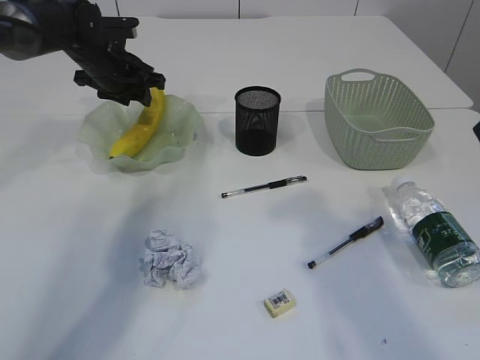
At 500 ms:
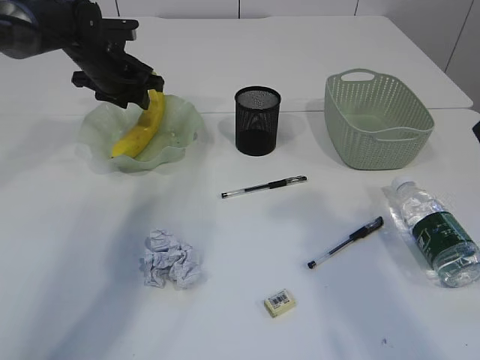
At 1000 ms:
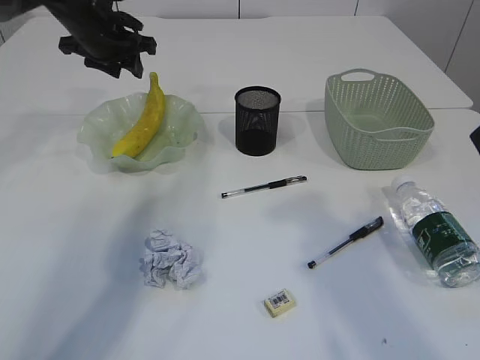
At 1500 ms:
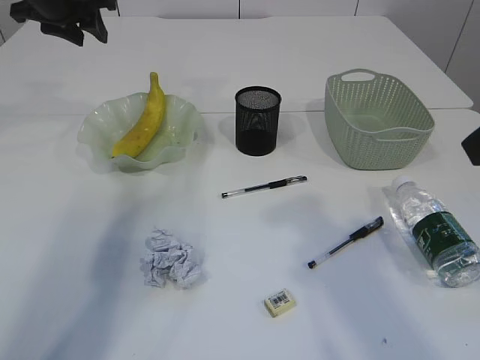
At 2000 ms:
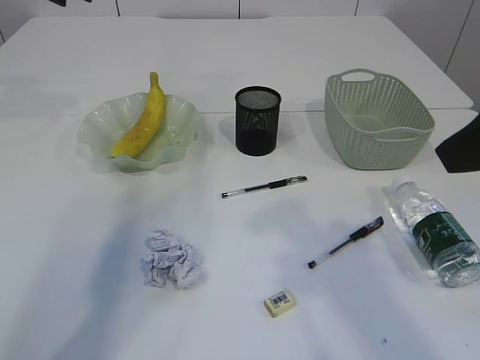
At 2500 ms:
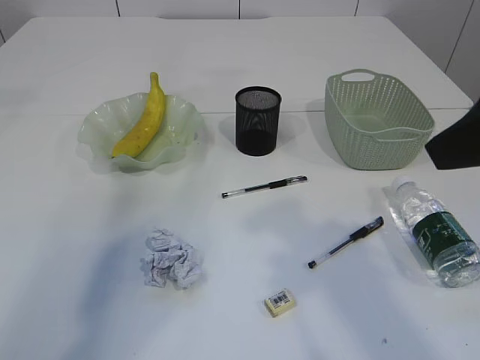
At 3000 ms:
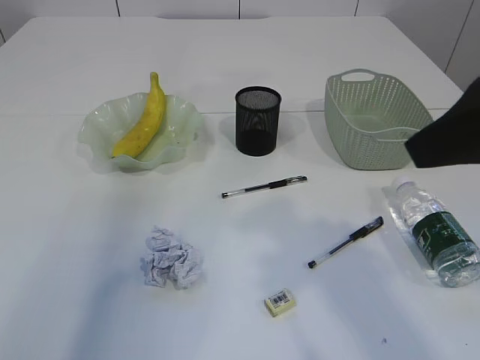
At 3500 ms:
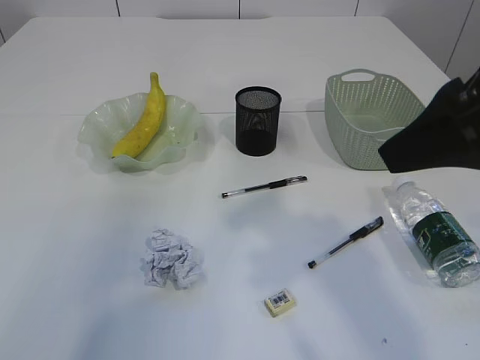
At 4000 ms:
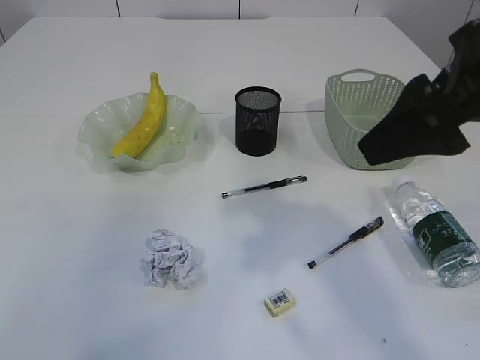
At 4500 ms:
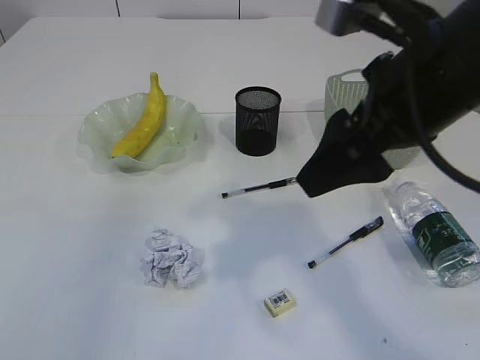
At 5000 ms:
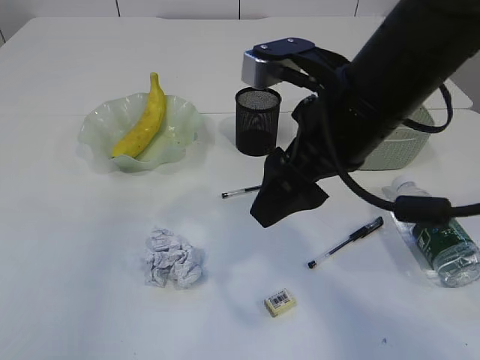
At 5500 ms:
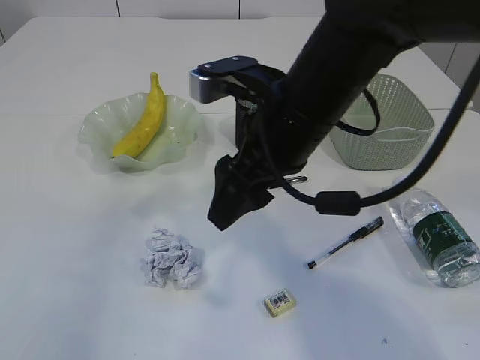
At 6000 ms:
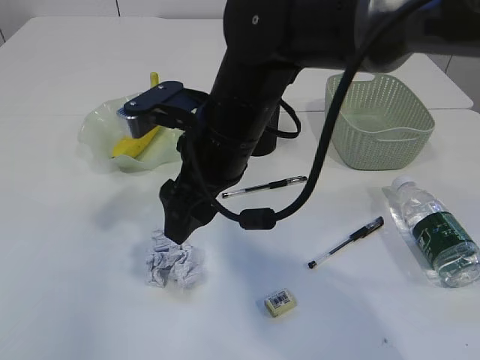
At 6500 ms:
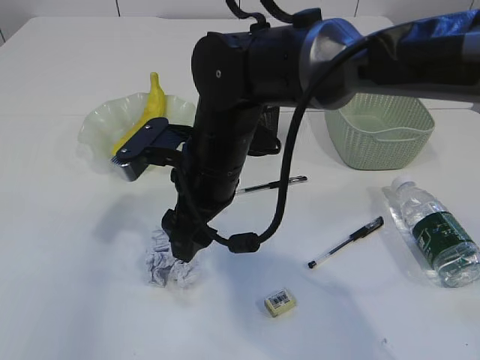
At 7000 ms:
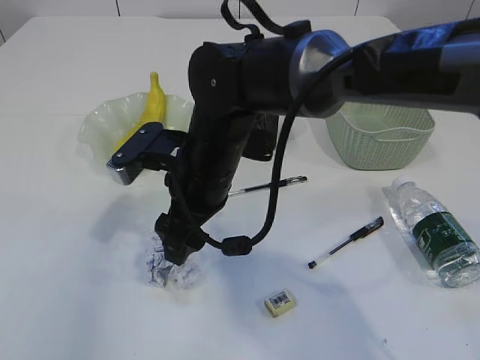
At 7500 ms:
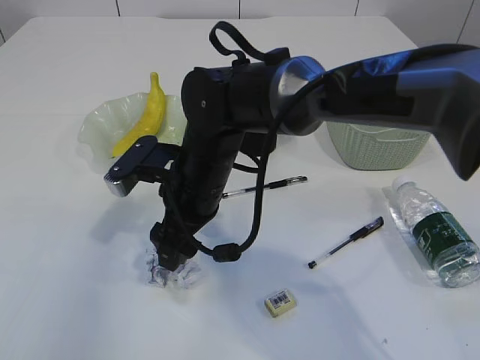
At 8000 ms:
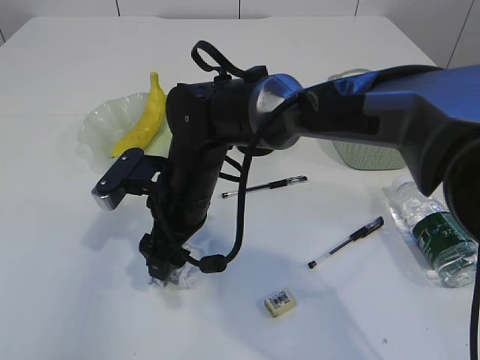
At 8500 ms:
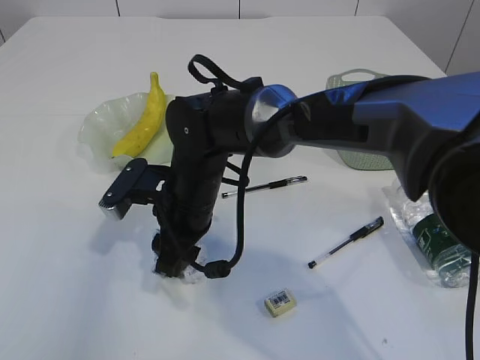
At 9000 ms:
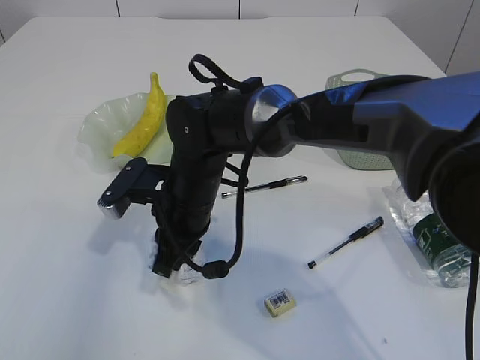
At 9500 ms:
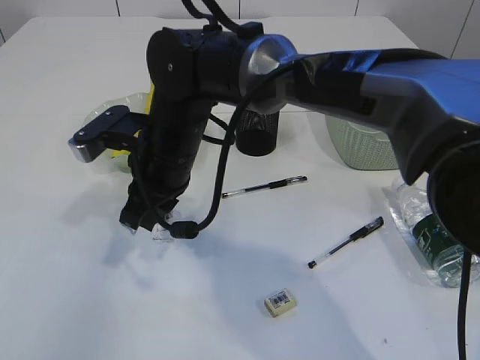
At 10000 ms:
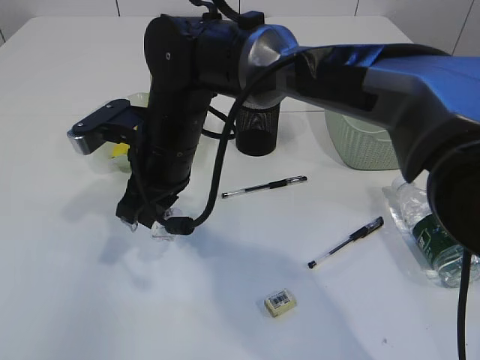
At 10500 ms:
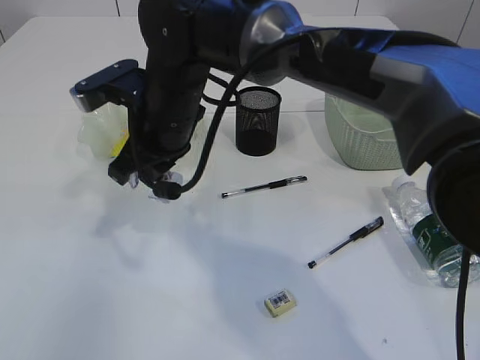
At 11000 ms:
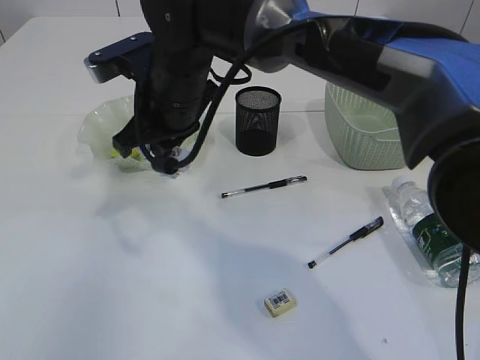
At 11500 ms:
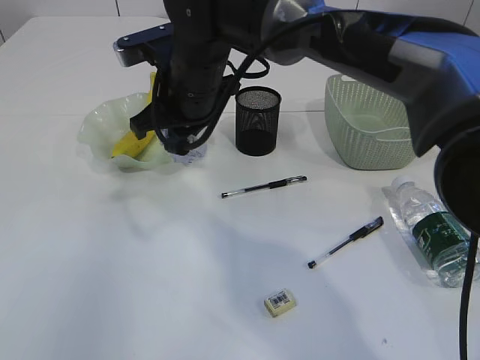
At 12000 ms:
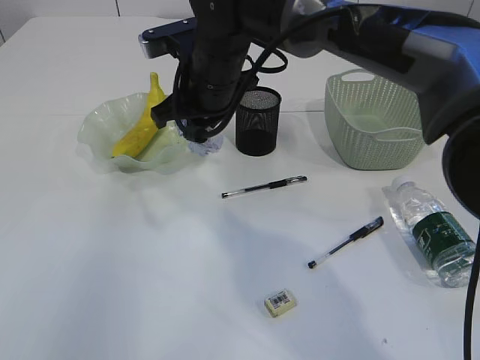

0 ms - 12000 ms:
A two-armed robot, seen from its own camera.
Step, 1500 ms - 9500 ms: Pick up the waste paper.
0 ms - 2000 ms: The left gripper goes approximately 15 cm upward.
2000 ms - 4000 ms: The left gripper shifts roughly 35 cm backward and upward, while the right gripper moves approximately 5 cm.
4000 ms - 6000 ms: The left gripper moves backward, approximately 10 cm. Meanwhile the right gripper heads to the left, downward and forward, covering roughly 25 cm.
6000 ms - 8000 ms: The right gripper heads downward, covering roughly 10 cm.
8000 ms - 10000 ms: The right gripper travels upward by about 5 cm, and closes its fingers.
10000 ms - 12000 ms: The right gripper travels forward and to the right by some 10 cm.

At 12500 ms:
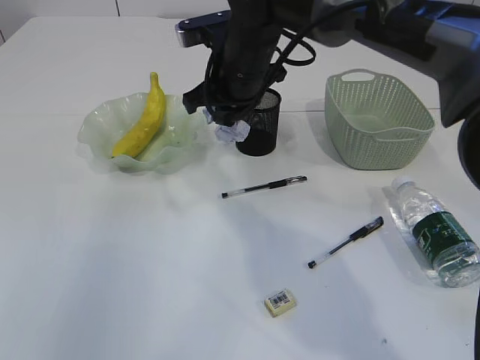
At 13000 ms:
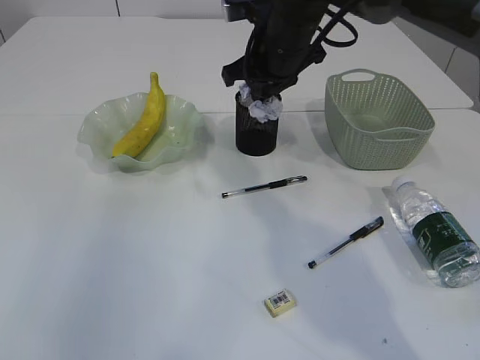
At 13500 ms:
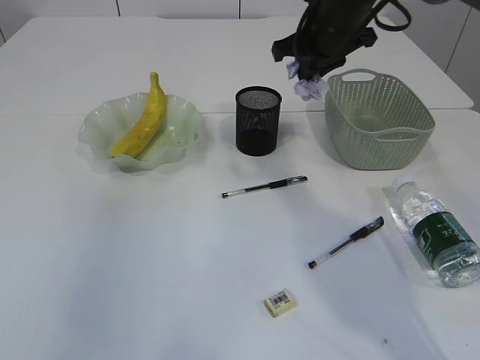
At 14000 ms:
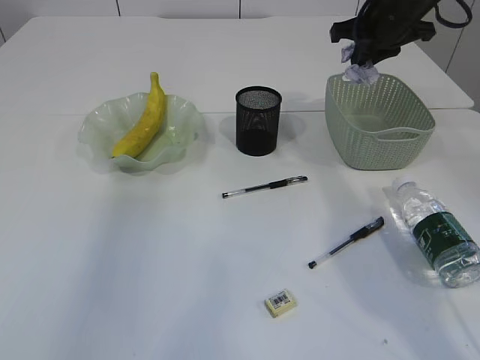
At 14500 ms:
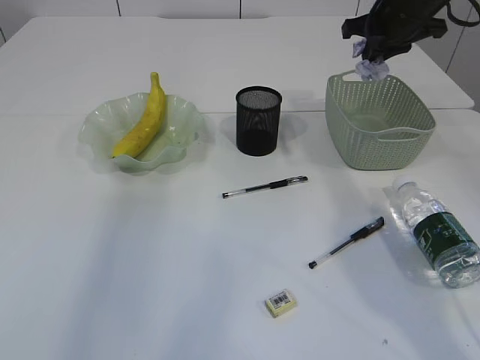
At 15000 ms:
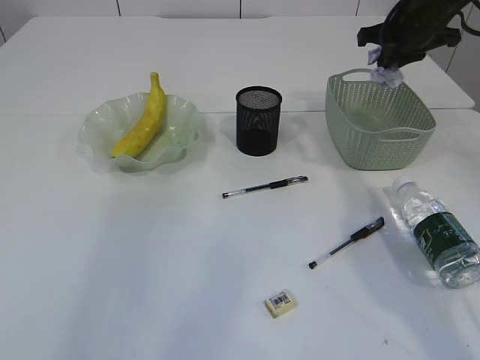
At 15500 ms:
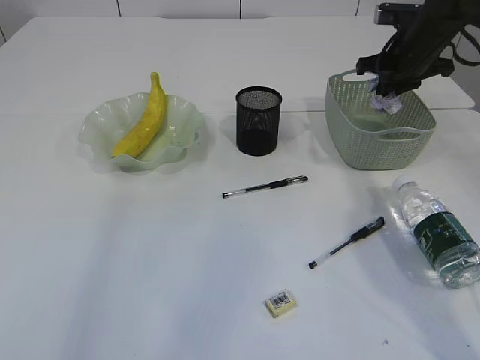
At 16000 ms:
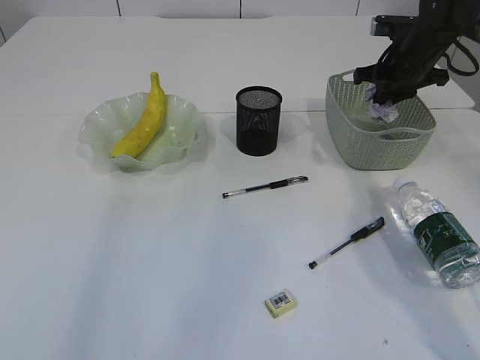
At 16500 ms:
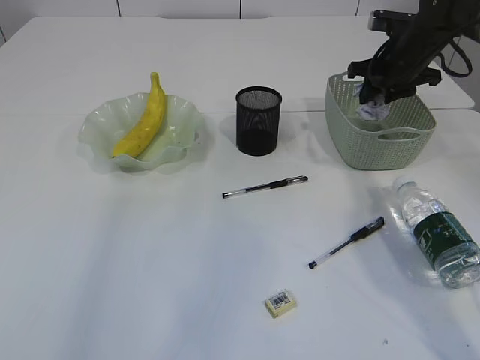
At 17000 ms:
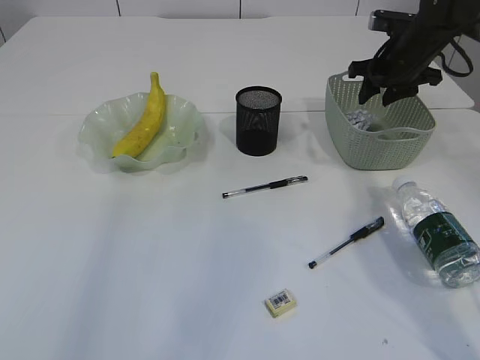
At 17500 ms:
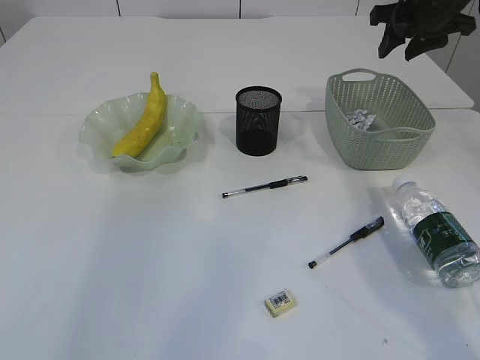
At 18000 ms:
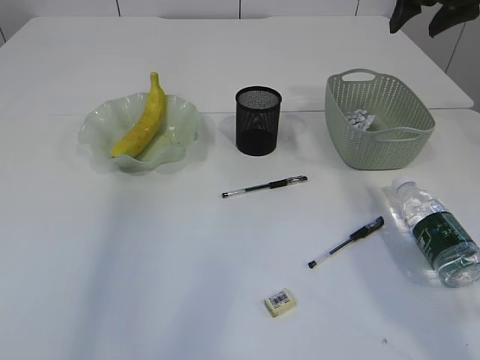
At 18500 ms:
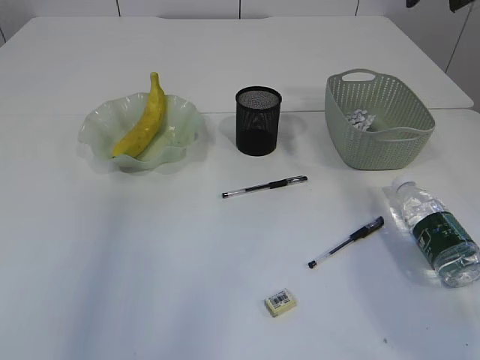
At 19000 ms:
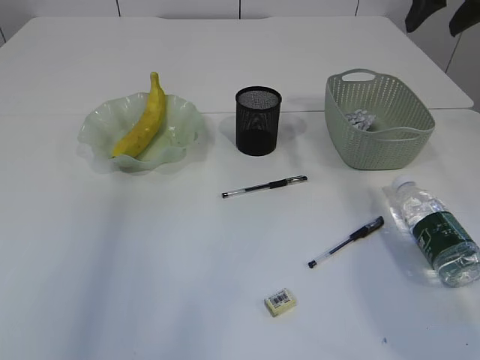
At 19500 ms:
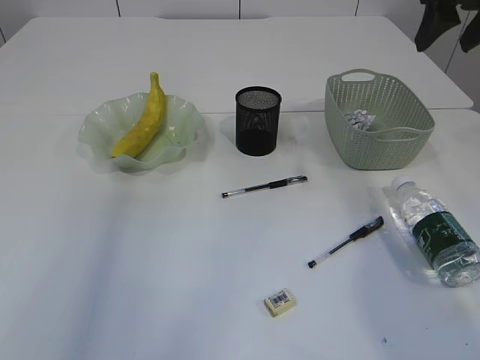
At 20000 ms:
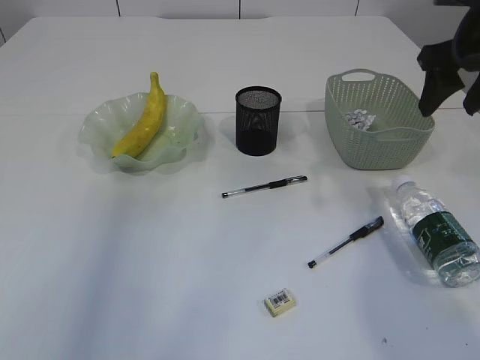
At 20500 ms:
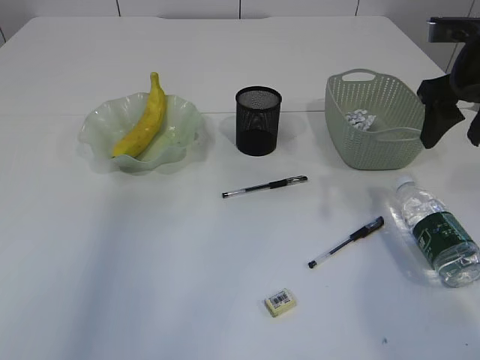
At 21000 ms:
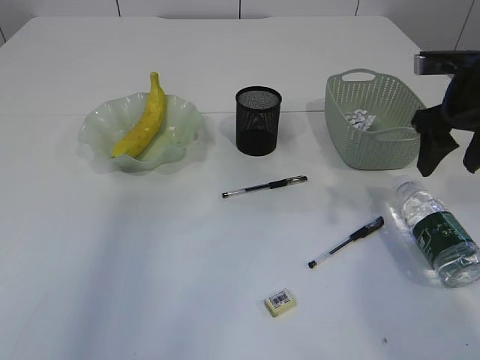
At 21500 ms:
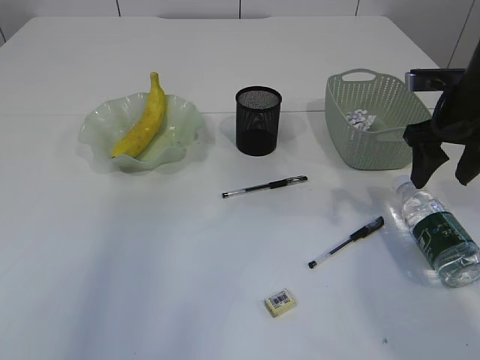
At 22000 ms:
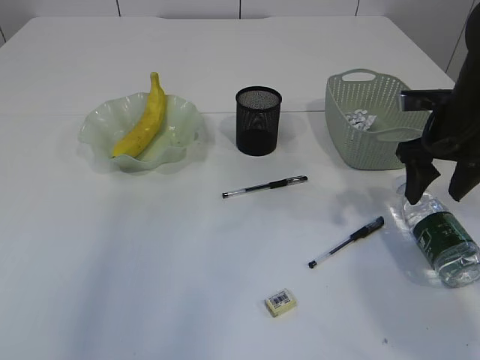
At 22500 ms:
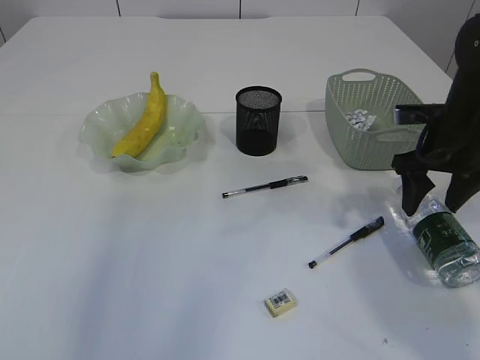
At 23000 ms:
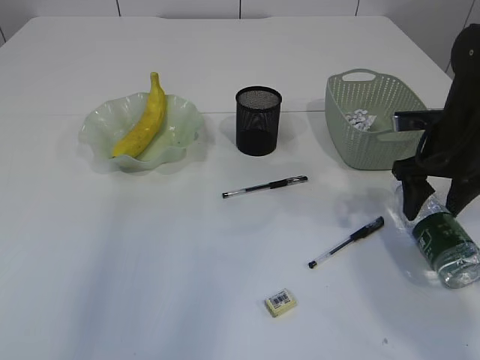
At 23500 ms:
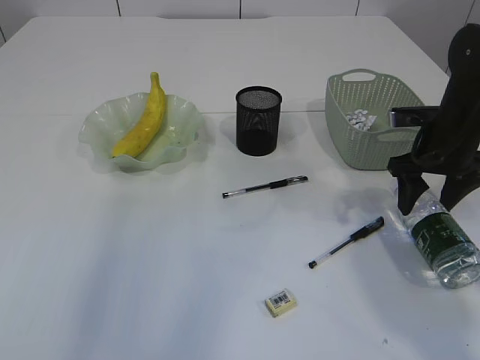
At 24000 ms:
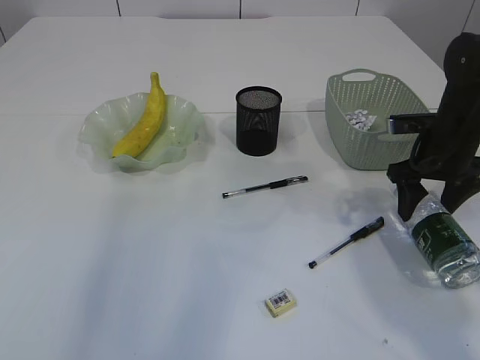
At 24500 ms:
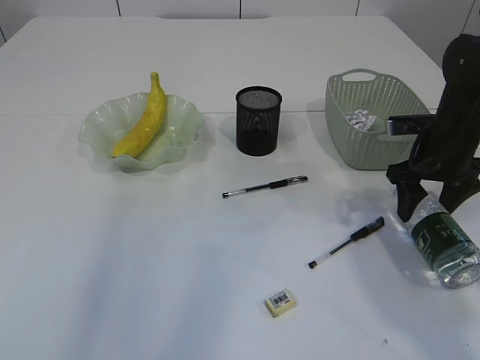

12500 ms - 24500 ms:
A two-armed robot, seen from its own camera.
Step, 12500 ms - 17000 ms: Place the waste paper in the basket.
12500 ms - 14500 ms: The right gripper goes some 20 cm to the right.
14500 ms - 16500 ms: The right gripper shifts approximately 10 cm downward, and opens its fingers.
16500 ms - 18500 ms: The right gripper shifts approximately 20 cm upward and backward, and opens up.
18500 ms - 20500 ms: The right gripper travels downward and backward by some 15 cm.
20500 ms - 22500 ms: The right gripper moves downward, approximately 10 cm.
22500 ms - 24500 ms: The grippers move only a little.

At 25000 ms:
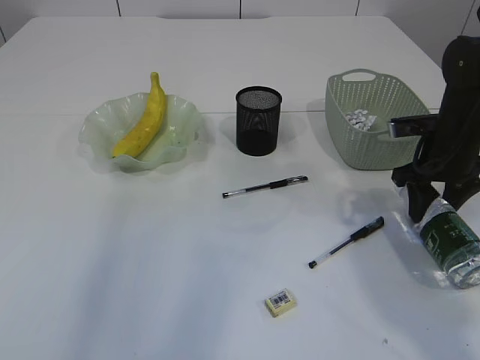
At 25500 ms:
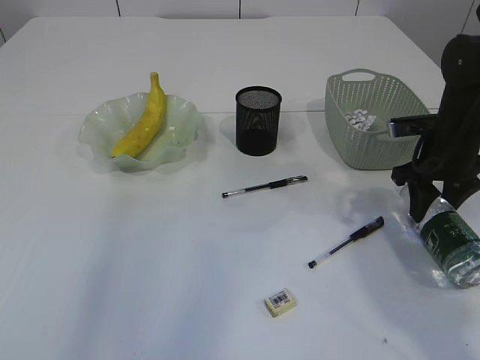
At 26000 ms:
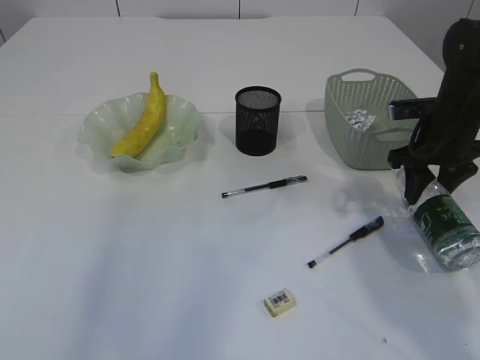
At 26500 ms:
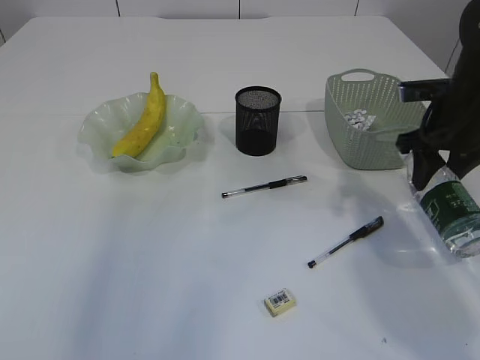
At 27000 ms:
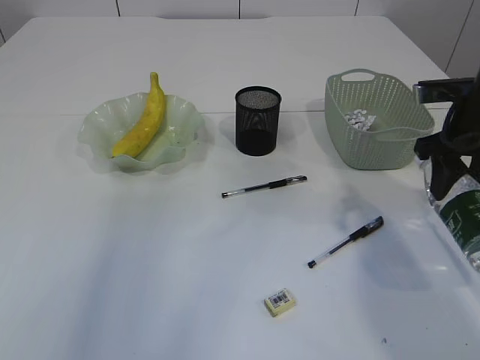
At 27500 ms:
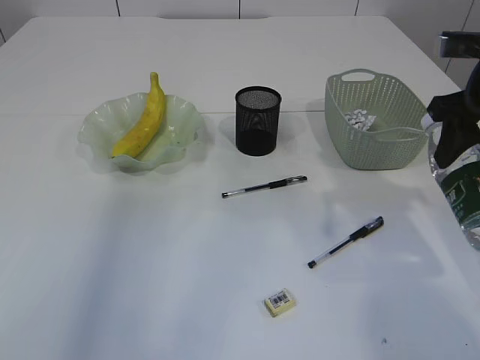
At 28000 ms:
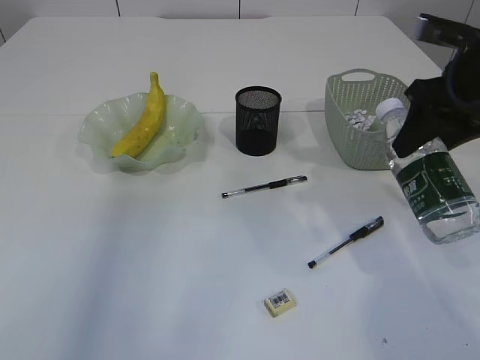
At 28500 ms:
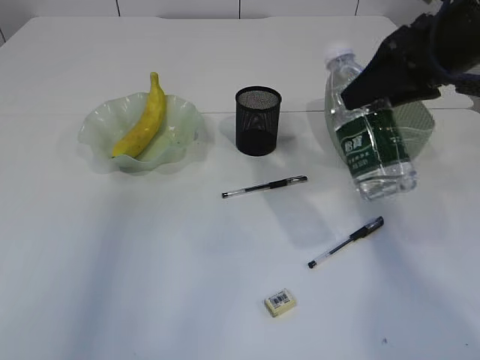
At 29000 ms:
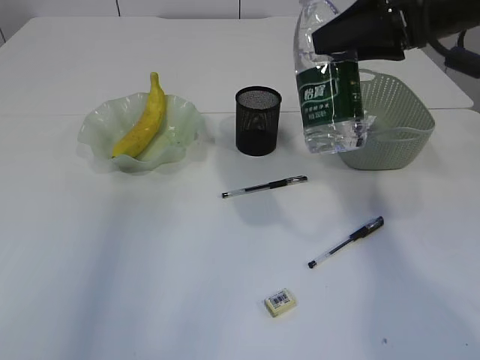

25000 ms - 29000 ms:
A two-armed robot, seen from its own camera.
Step, 25000 ms - 27000 ms: Pick up the bottle with the right arm.
25000 ms - 27000 ms: The right gripper heads upward, covering about 5 cm.
27000 ms - 29000 ms: The right gripper heads upward and to the left, covering some 15 cm.
